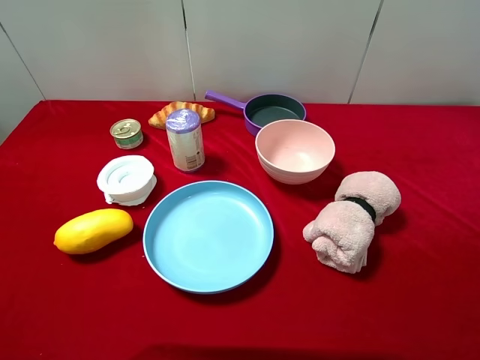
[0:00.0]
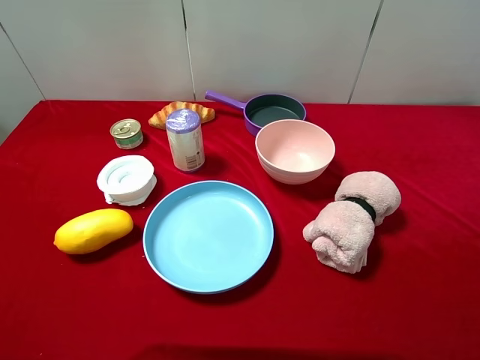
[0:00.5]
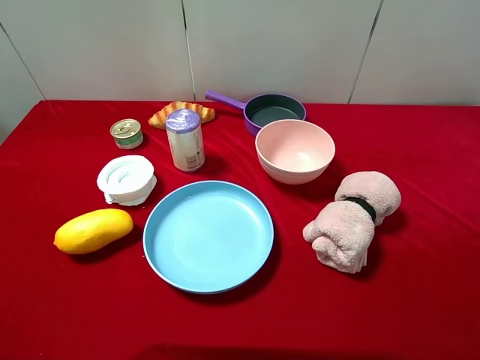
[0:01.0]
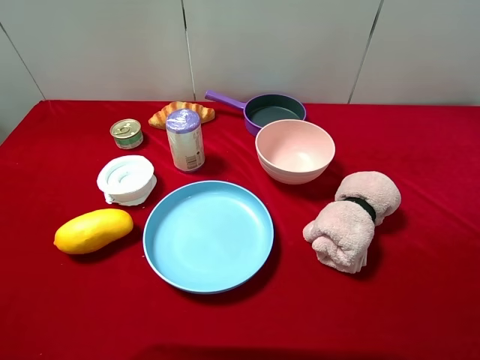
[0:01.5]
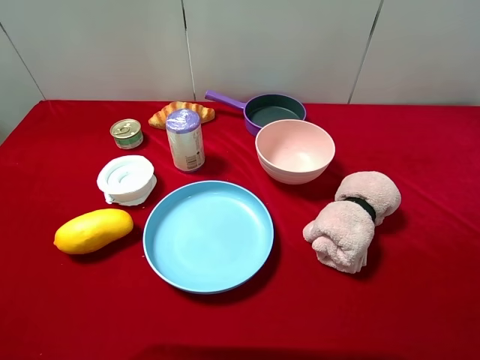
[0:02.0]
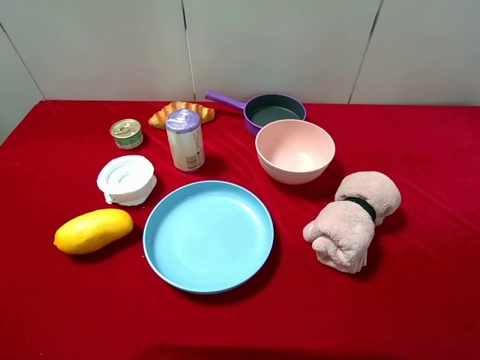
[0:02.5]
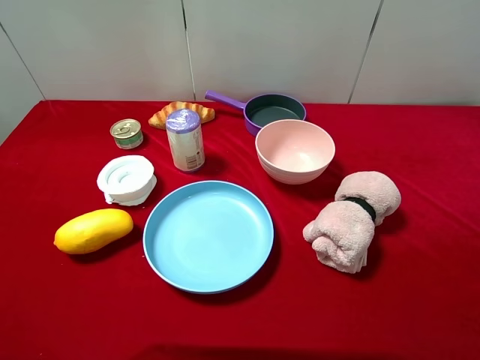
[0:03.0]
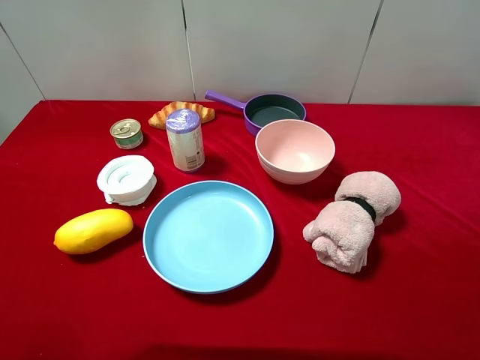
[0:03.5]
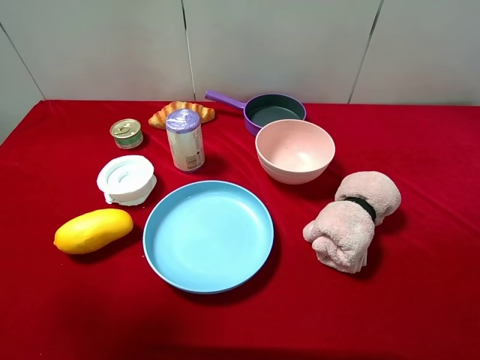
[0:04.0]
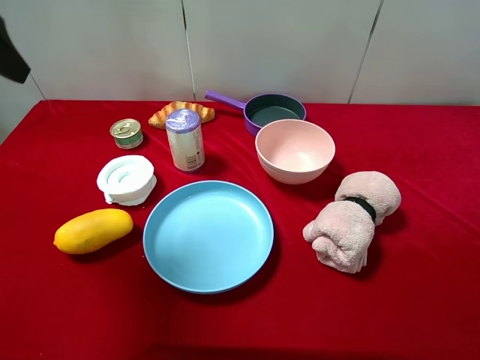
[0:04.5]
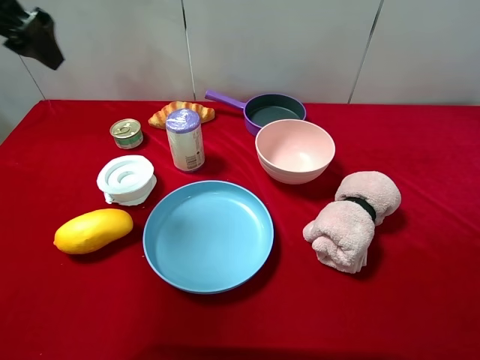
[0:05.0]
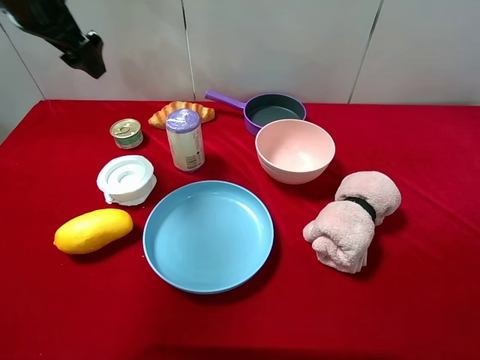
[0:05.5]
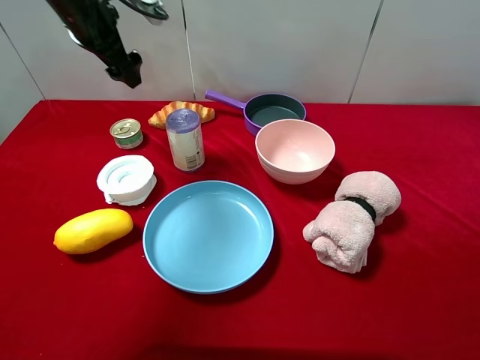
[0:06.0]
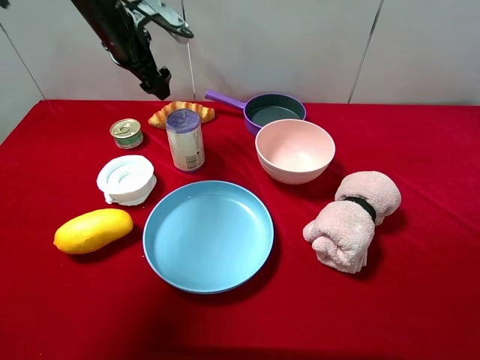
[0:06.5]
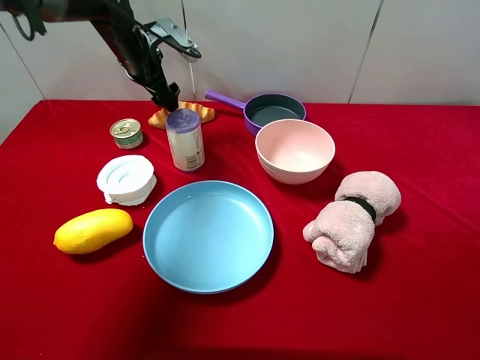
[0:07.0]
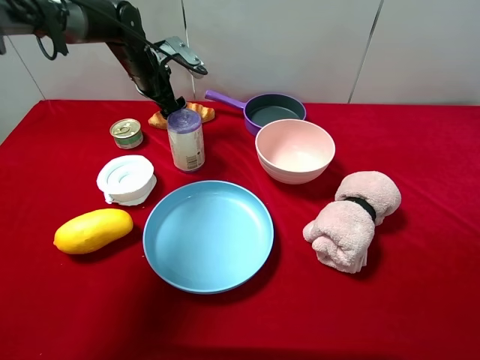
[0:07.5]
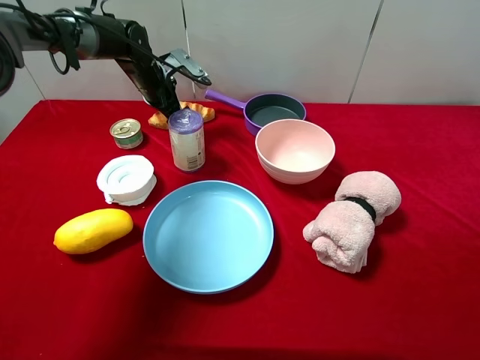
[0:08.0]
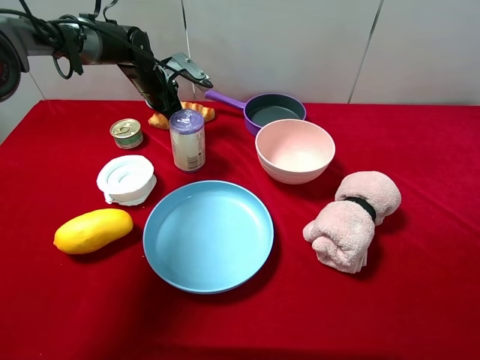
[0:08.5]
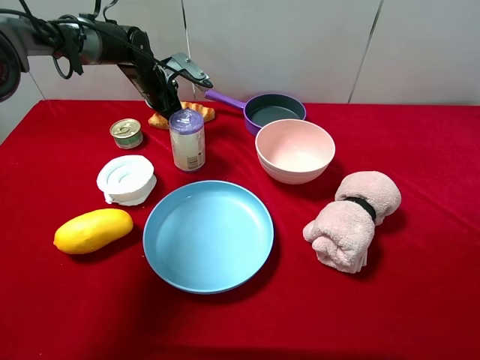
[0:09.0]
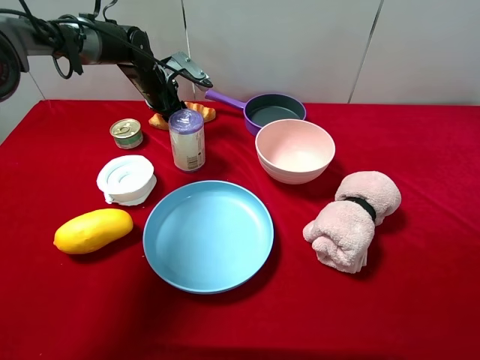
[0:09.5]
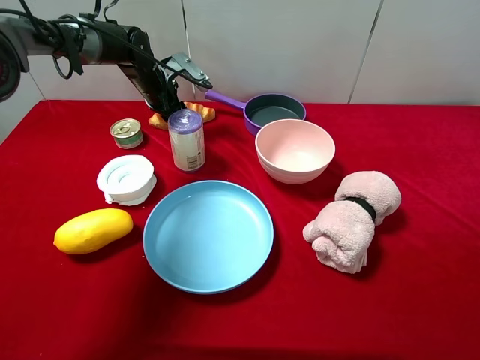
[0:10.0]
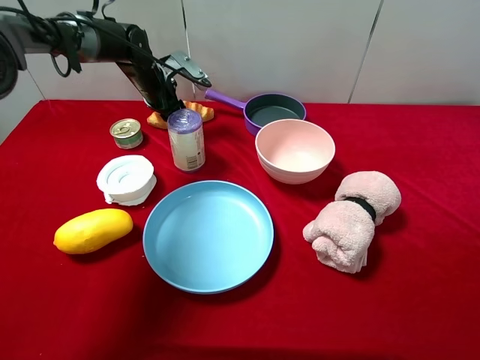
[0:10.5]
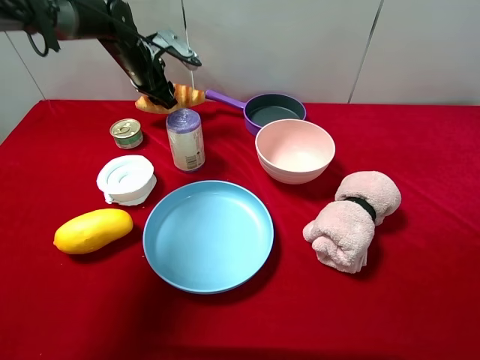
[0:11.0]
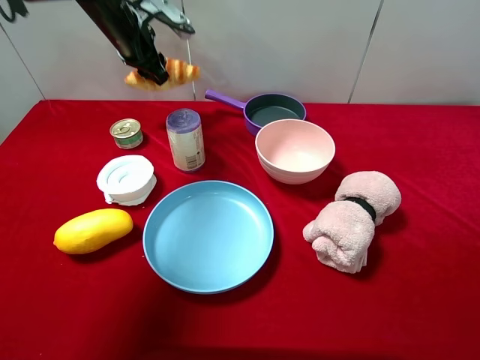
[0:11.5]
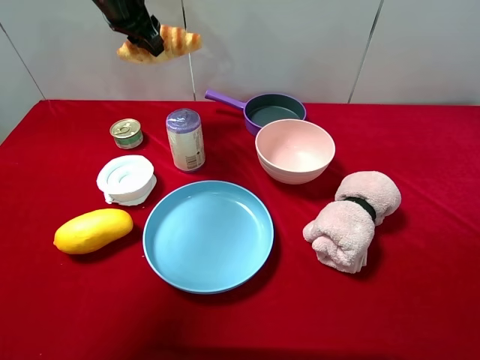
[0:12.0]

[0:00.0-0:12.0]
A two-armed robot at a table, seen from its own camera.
Task of the whole recording: pick up an item with a gripper and place it in a random container on the desktop.
0:00.0 to 0:02.0: Both grippers stay about where they are.
0:04.0 to 0:06.0: The left gripper moves forward, roughly 30 cm.
0:06.0 to 0:08.0: The left gripper shifts approximately 15 cm downward and forward.
0:08.0 to 0:10.0: The left gripper closes.
0:10.0 to 0:12.0: The left gripper heads upward, covering about 15 cm.

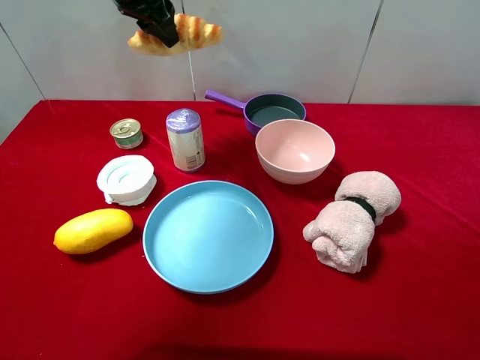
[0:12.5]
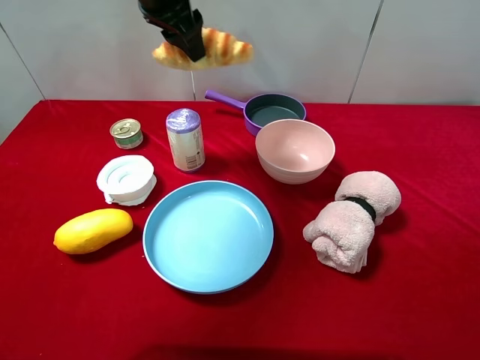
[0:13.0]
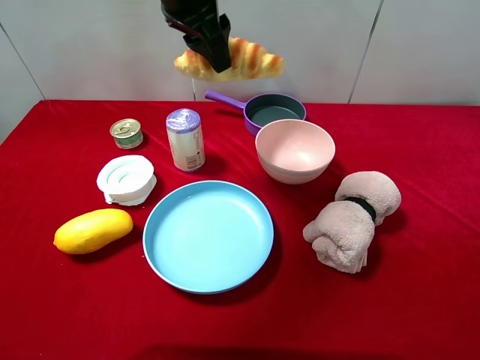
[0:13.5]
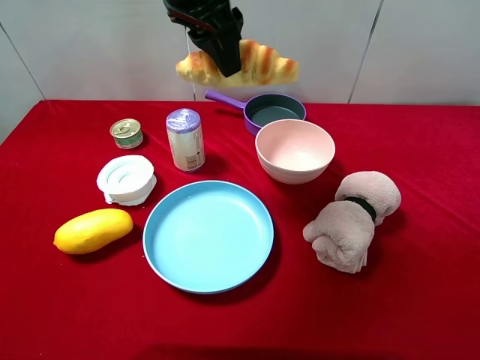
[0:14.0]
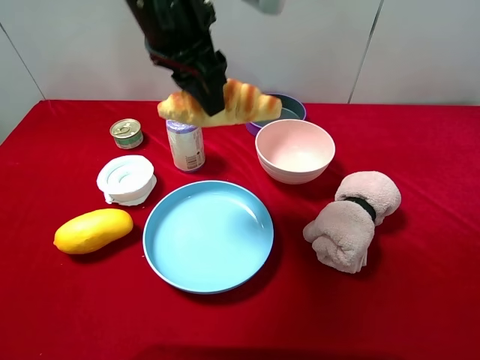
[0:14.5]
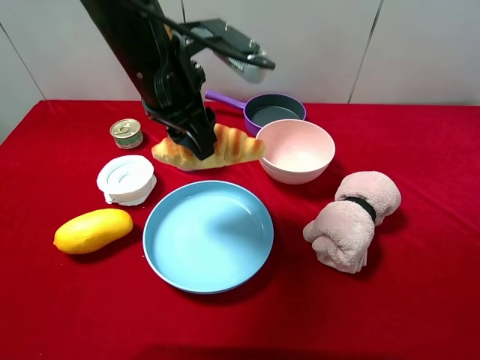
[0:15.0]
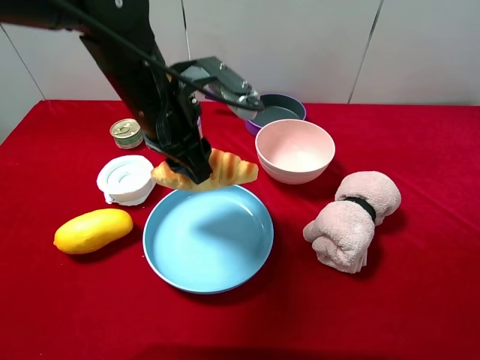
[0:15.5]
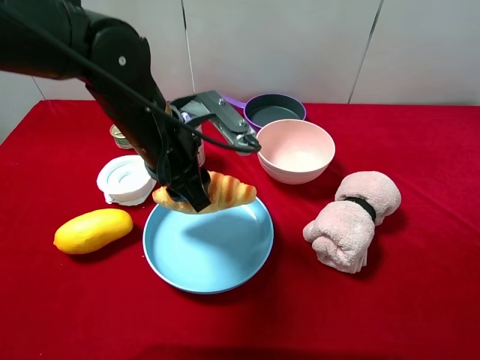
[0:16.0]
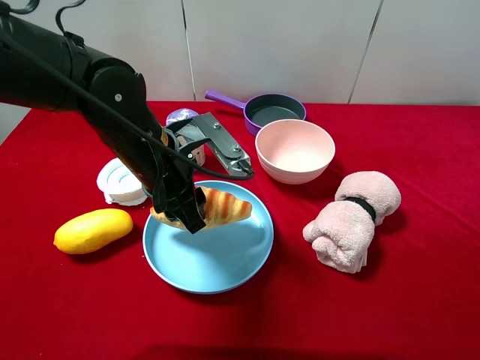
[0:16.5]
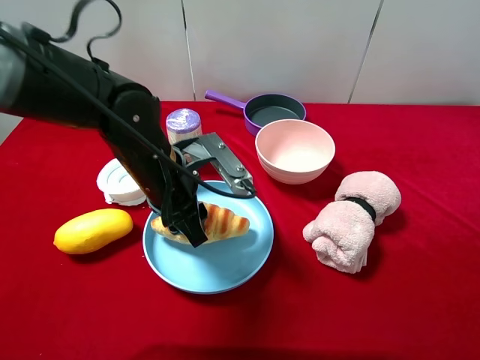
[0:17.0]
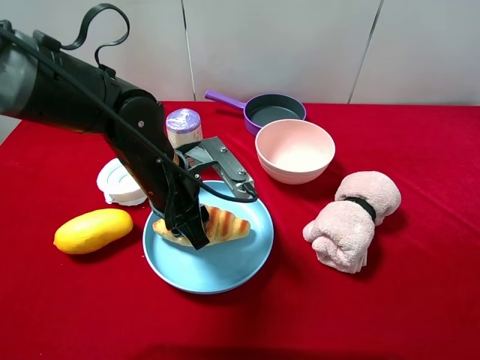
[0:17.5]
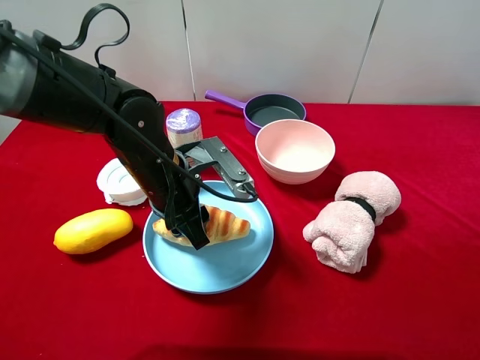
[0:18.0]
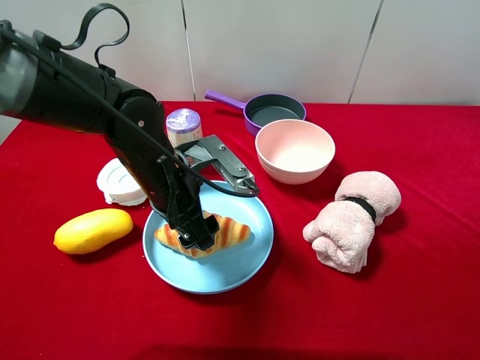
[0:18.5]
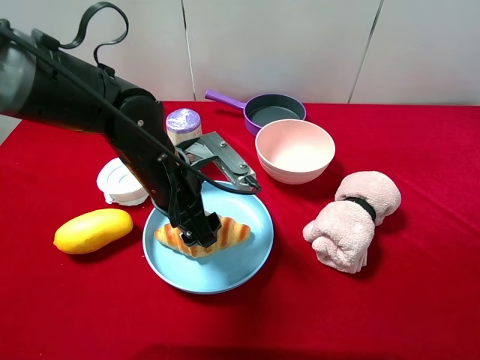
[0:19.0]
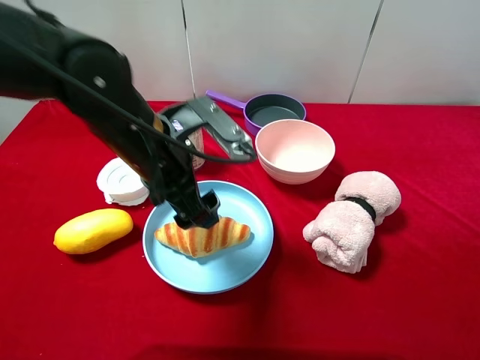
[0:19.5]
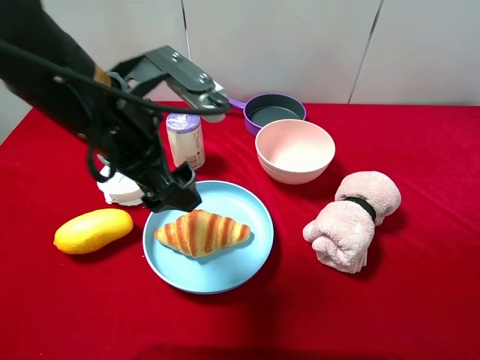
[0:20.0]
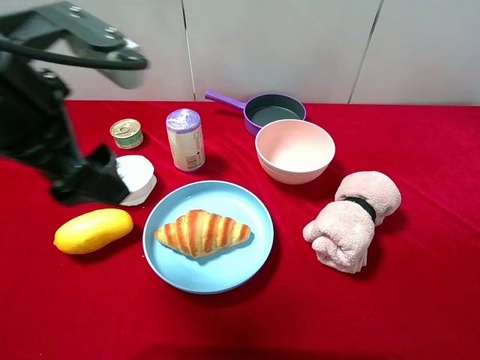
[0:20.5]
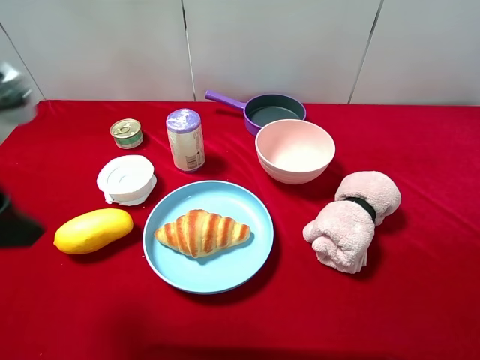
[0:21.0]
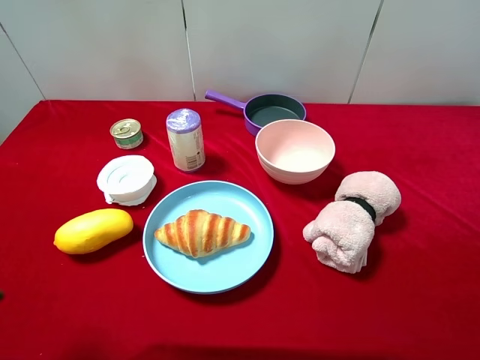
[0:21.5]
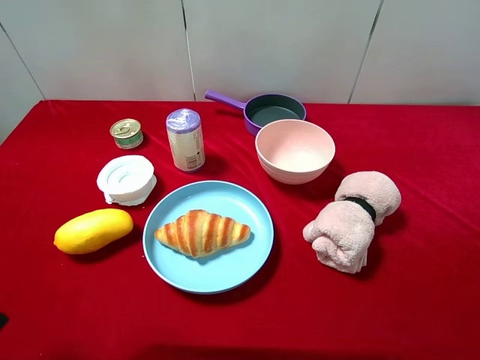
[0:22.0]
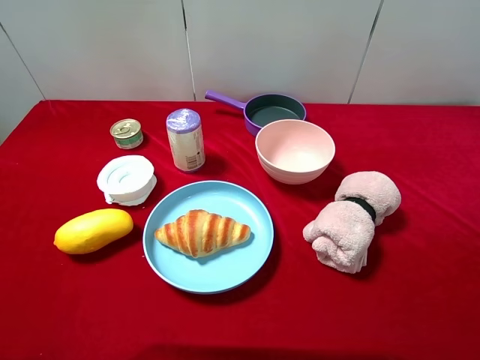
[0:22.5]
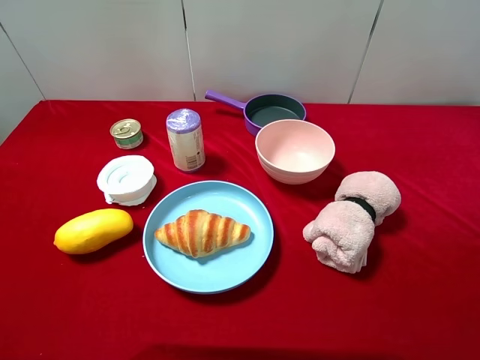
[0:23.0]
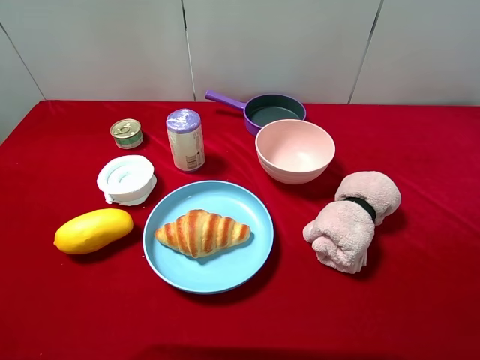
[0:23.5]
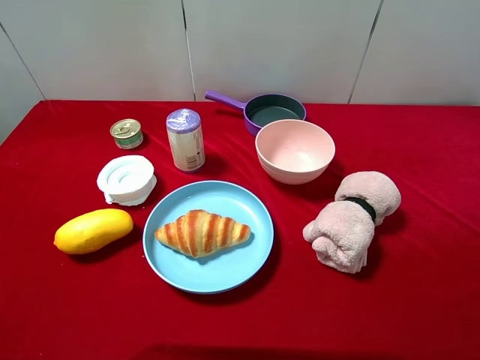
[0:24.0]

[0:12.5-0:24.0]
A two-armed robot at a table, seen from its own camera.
Task of the whole recording: pick up an item with a gripper and place it in a random container on the desktop.
0:12.5 to 0:14.5: The left gripper goes roughly 15 cm backward and to the right.
0:14.5 to 0:16.5: The left gripper shifts roughly 15 cm downward.
0:16.5 to 0:18.5: The left gripper opens its fingers.
0:18.5 to 0:20.0: The left gripper is displaced upward by roughly 10 cm.
0:20.0 to 0:22.0: The left gripper goes approximately 20 cm to the left and backward.
